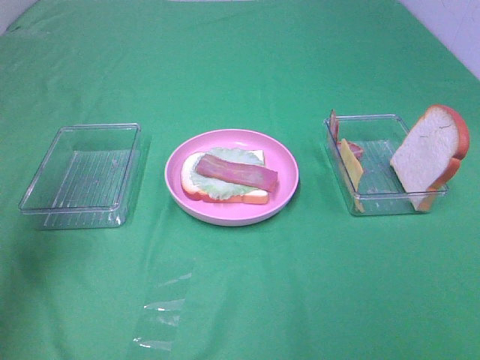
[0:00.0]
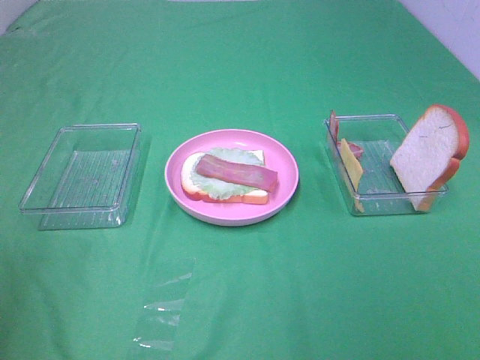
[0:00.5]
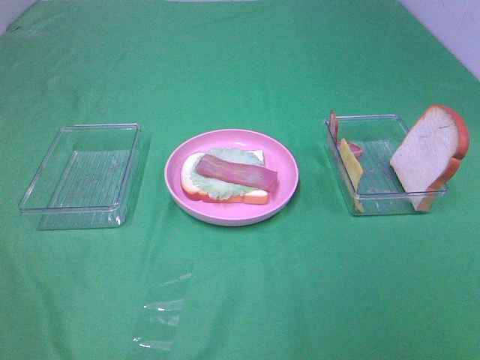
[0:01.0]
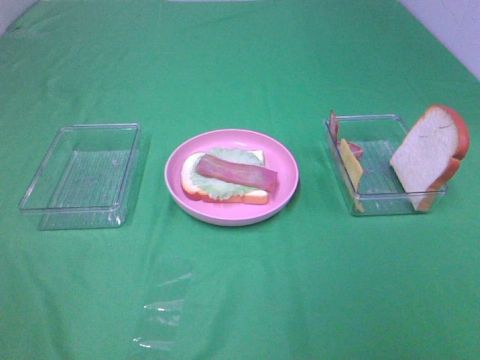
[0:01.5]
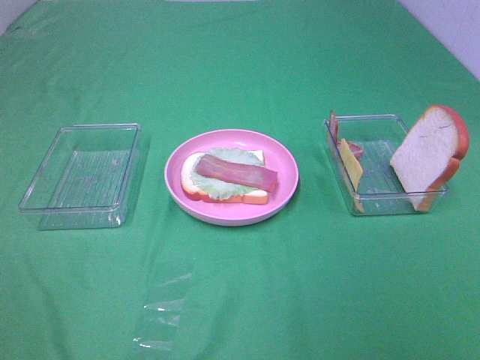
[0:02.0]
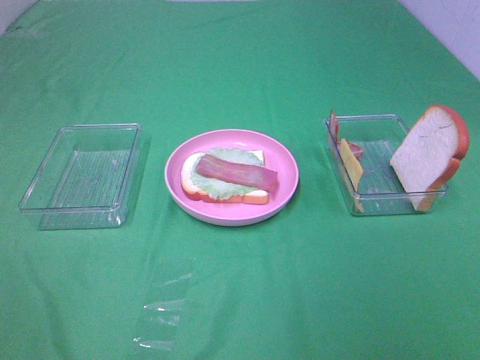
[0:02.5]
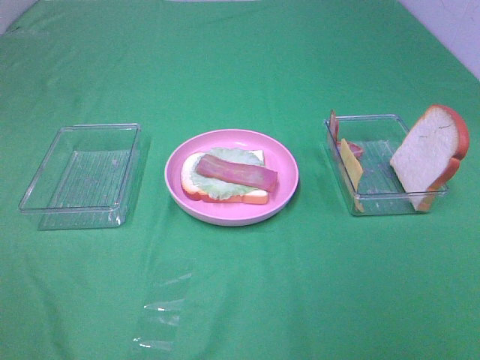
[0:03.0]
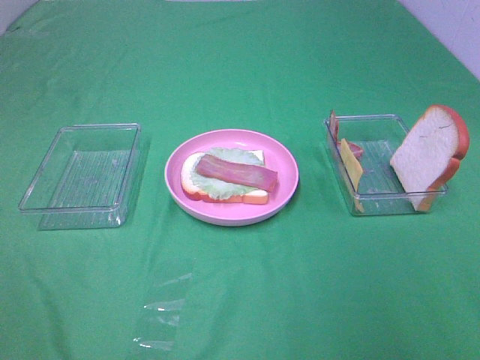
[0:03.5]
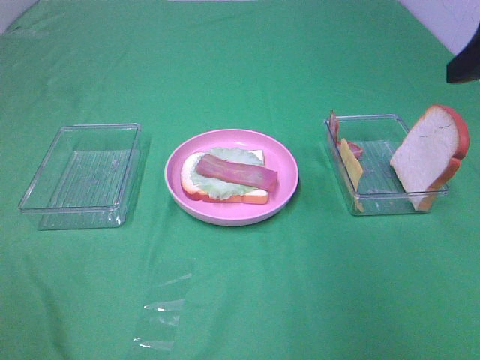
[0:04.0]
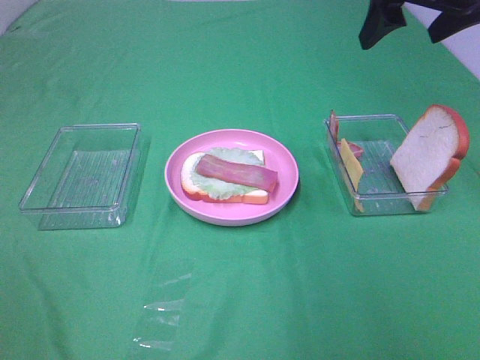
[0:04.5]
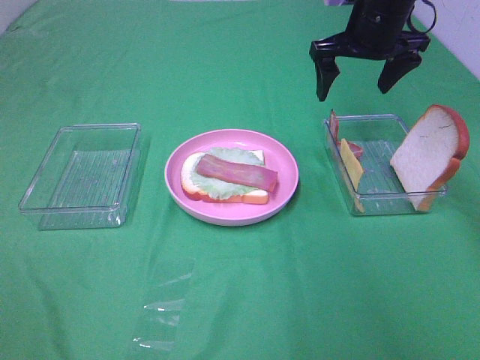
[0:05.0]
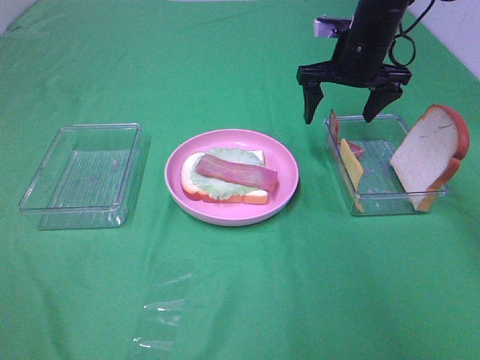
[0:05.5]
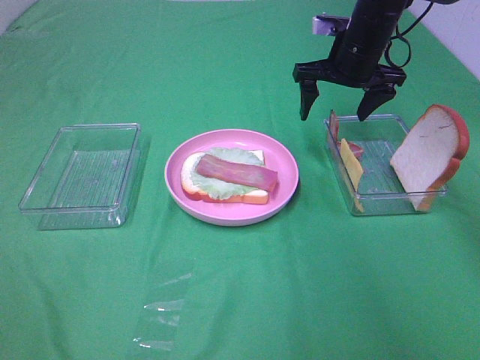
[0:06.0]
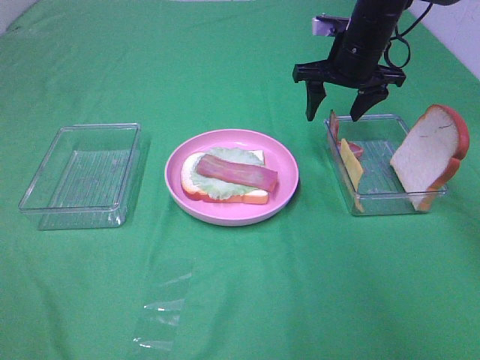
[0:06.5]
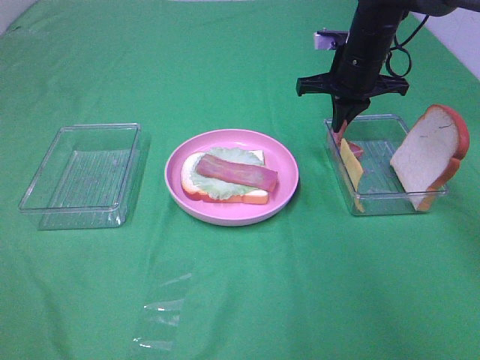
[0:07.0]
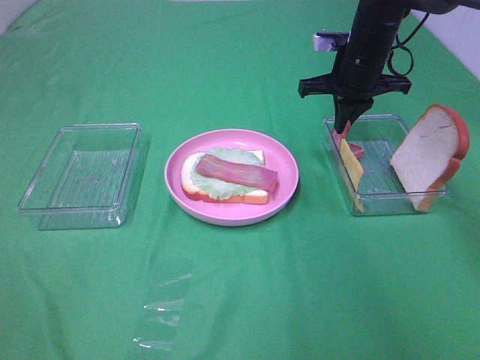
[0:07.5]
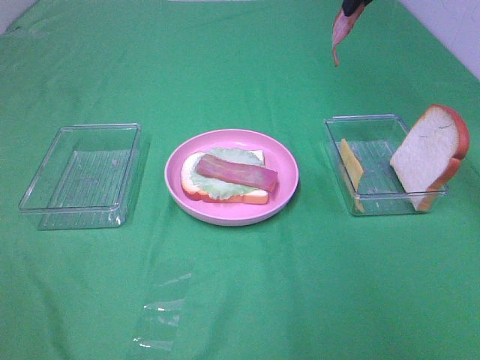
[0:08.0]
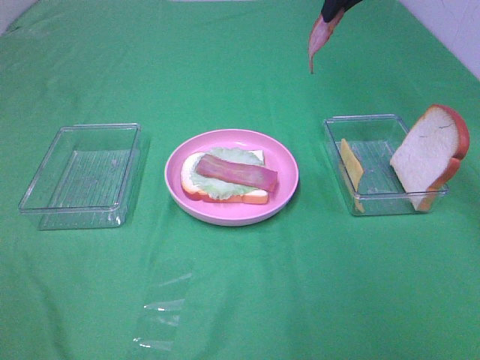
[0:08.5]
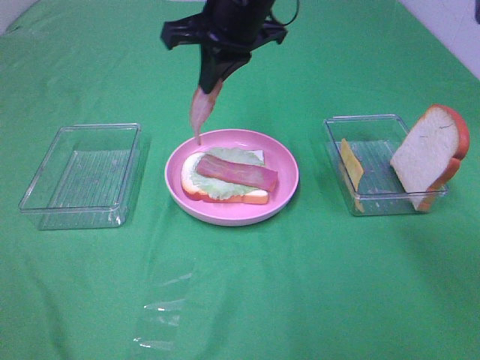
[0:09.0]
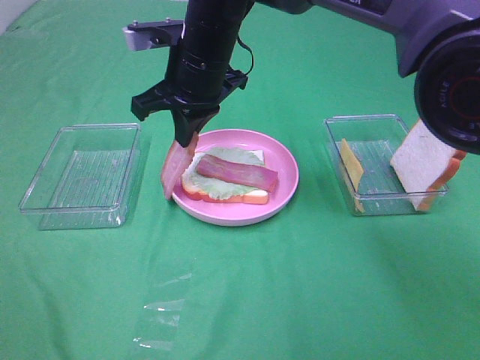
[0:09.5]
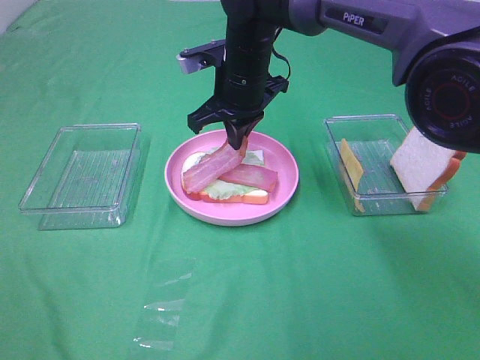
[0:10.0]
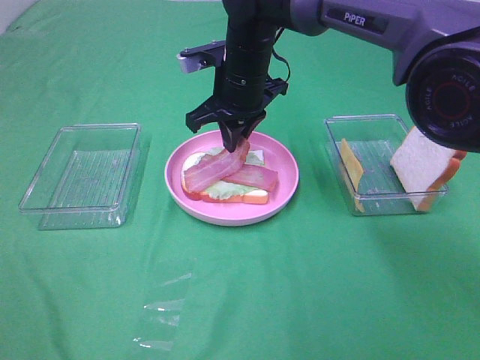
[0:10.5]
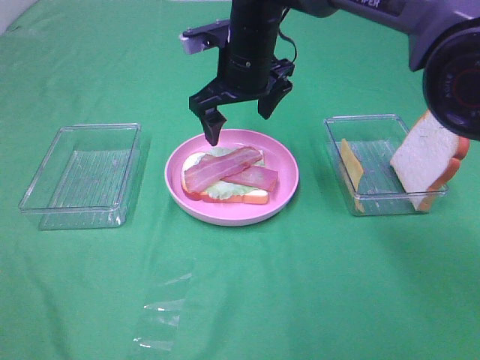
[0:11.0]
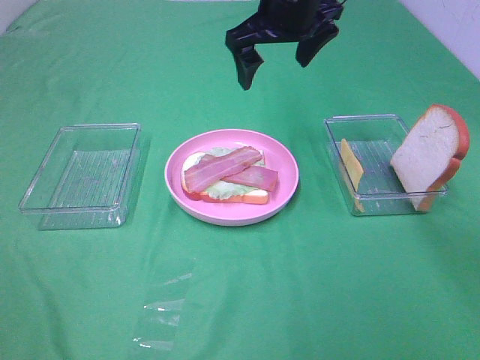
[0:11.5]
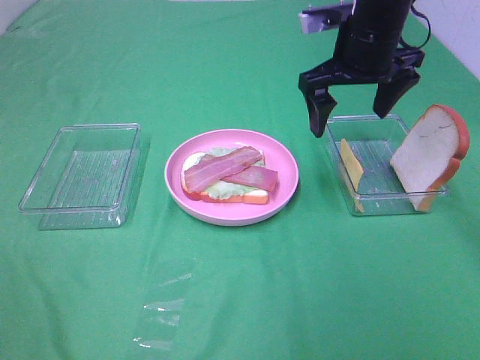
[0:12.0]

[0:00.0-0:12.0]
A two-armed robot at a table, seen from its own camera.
Task of the whole recording: Make sandwiches.
Step, 0:00.0 to 0:07.0: Right hand:grab the bacon.
Step, 0:07.5 to 0:10.5: Right hand:place bacon on bacon.
0:00.0 to 0:02.0: The left gripper heads backward, covering roughly 30 cm.
0:02.0 to 0:04.0: The right gripper shifts some 25 cm forward.
0:04.0 to 0:06.0: The right gripper moves forward, downward and to the left, approximately 30 cm.
0:06.0 to 0:08.0: The right gripper shifts about 15 cm upward, and closes its fingers.
0:08.0 to 0:10.0: The right gripper moves to the left and downward, about 25 cm.
0:10.0 to 0:12.0: The right gripper is displaced to the right by some 15 cm, and opens its fingers.

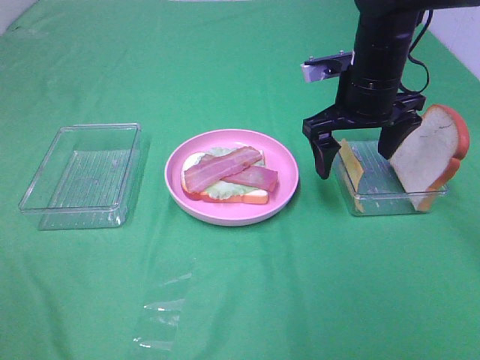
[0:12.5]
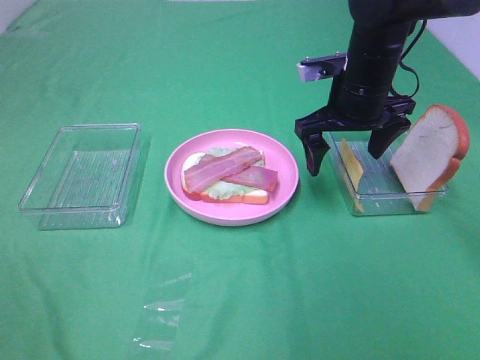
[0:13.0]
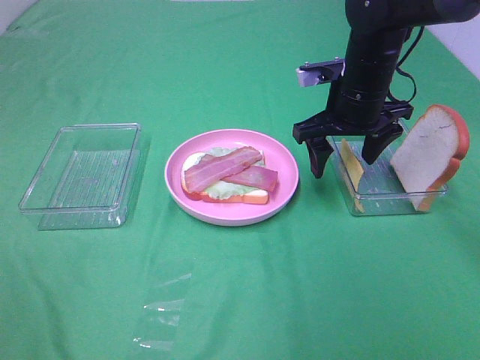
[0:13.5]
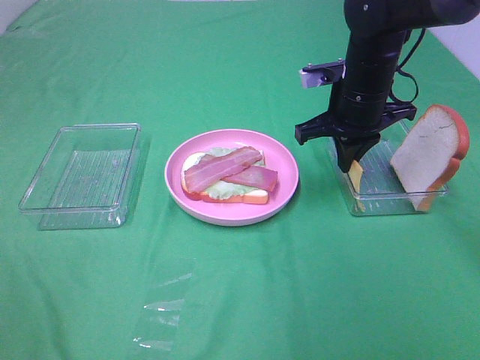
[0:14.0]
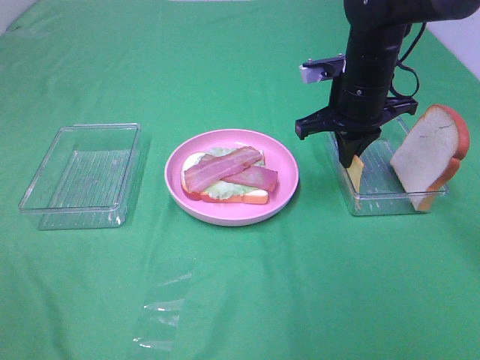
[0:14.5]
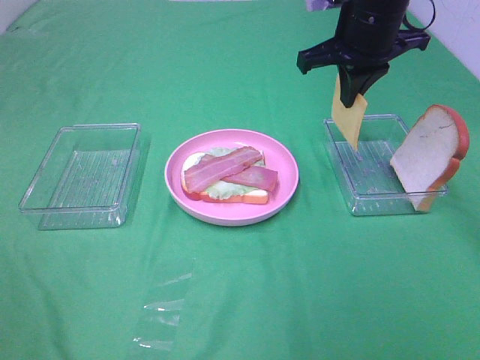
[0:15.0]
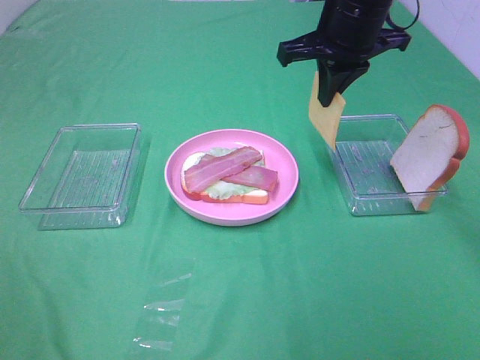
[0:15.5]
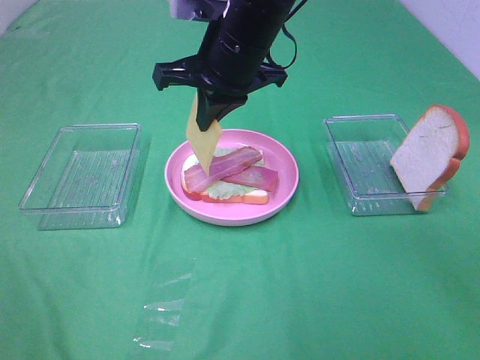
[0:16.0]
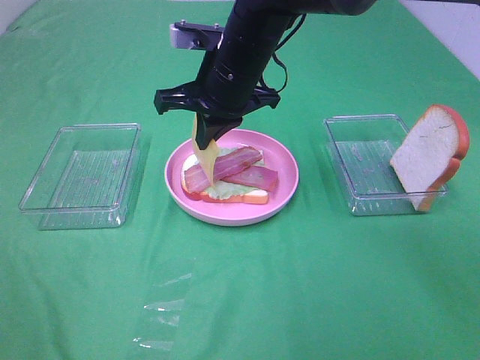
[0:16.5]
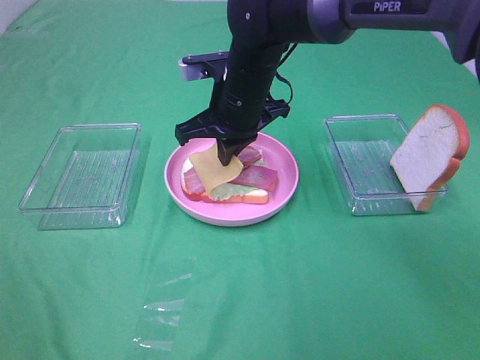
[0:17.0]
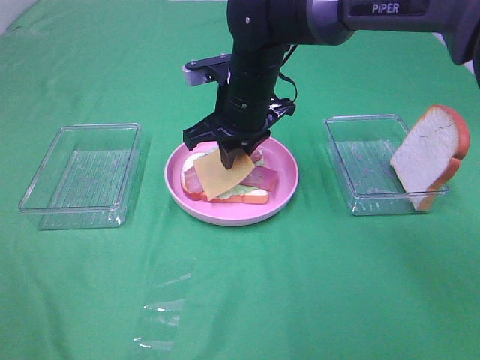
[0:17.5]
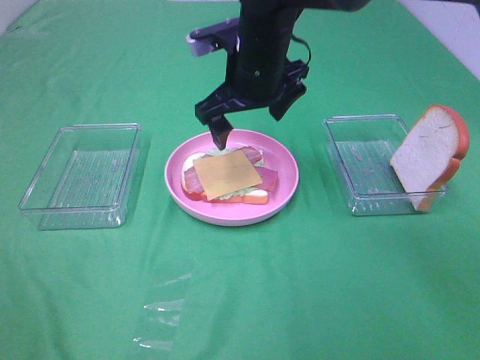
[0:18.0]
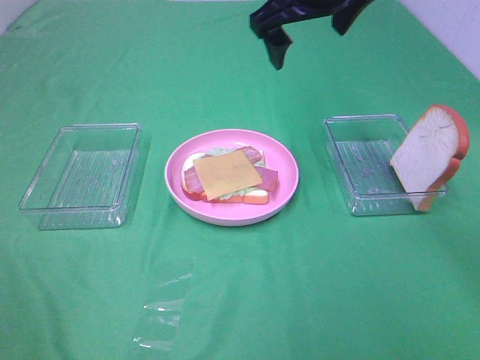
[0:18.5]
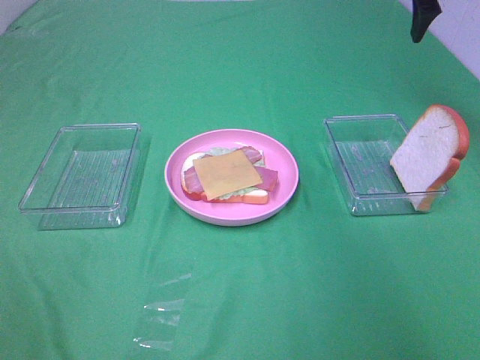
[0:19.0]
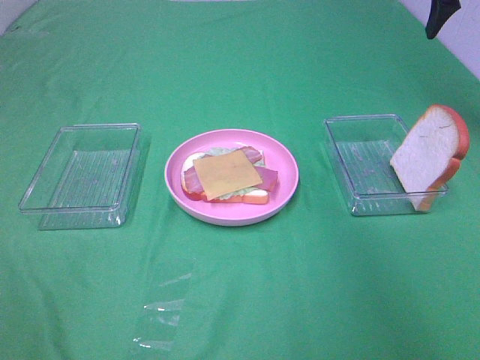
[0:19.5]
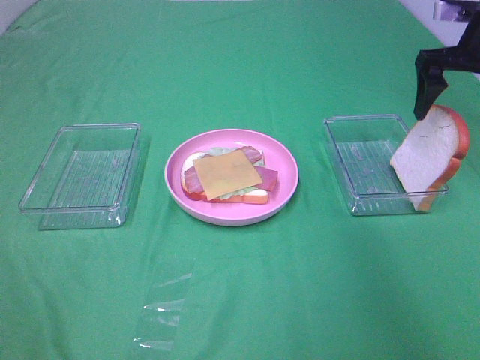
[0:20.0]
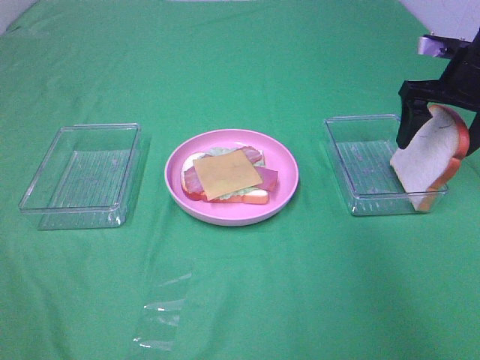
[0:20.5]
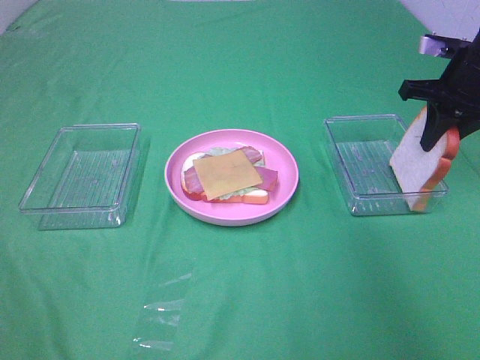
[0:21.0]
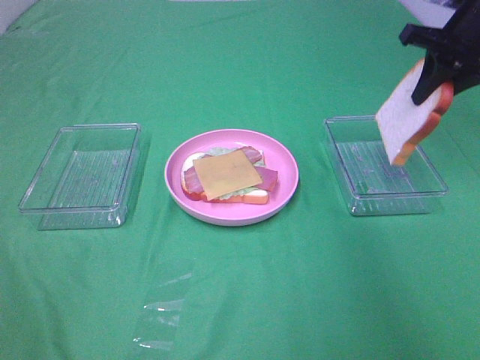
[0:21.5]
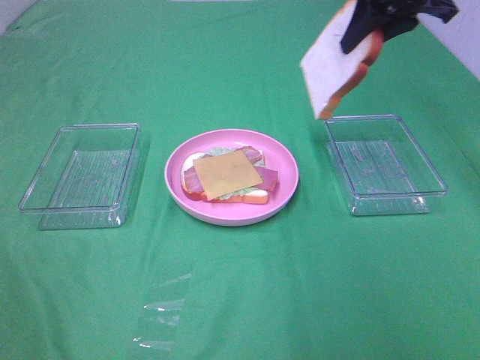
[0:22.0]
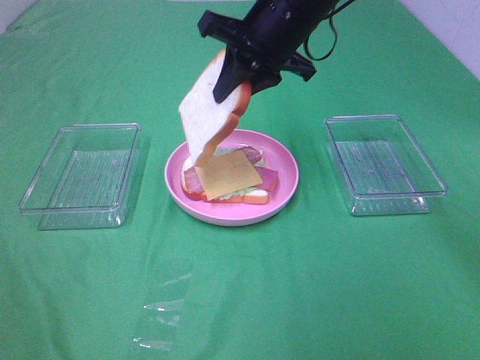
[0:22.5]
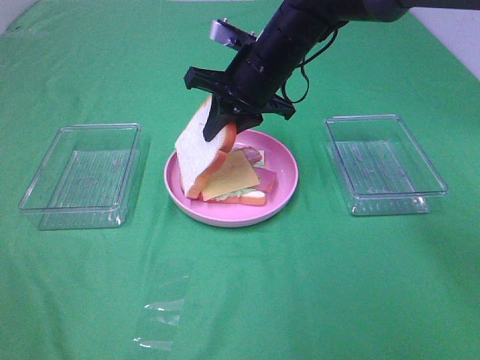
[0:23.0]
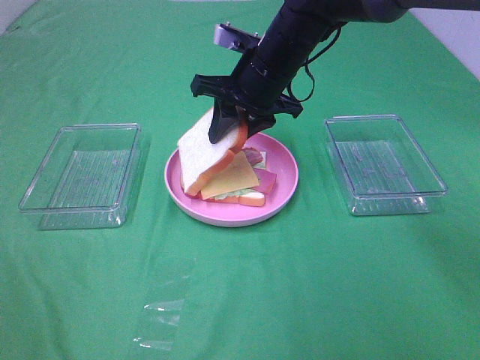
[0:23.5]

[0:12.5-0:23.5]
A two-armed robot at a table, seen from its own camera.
Task of the whole recording: Make sandwiches.
Step, 0:14.5 to 0:17.5: Right hand:place the cheese slice on top of the bacon.
Step, 0:18.0 to 0:20.5: Right hand:grab the bread slice.
0:12.5 to 0:14.5: The right gripper closes up.
0:14.5 to 0:16.0: The right gripper is displaced to the left and upward by roughly 15 cm.
0:16.0 to 0:18.0: The right gripper opens up.
0:18.0 to 0:20.0: The right gripper is displaced to the right by approximately 30 cm.
0:20.0 to 0:21.5: The right gripper closes.
0:21.5 to 0:23.5: The right gripper shifts roughly 25 cm to the left.

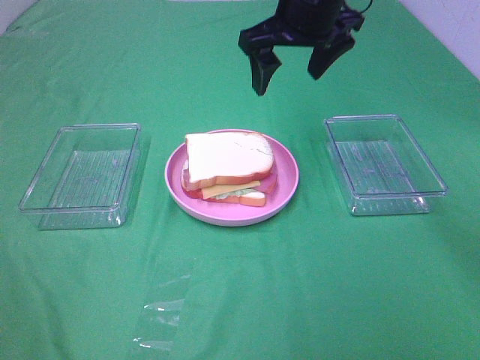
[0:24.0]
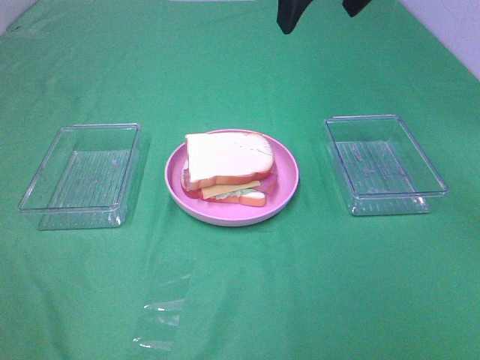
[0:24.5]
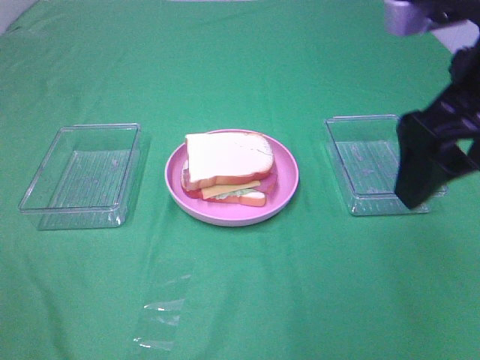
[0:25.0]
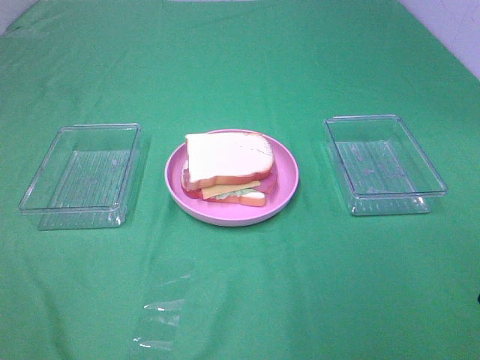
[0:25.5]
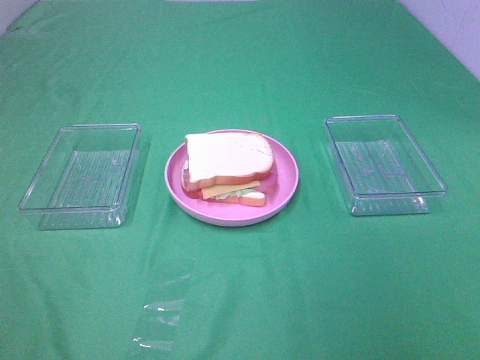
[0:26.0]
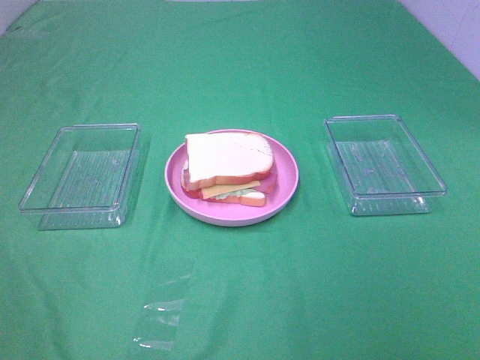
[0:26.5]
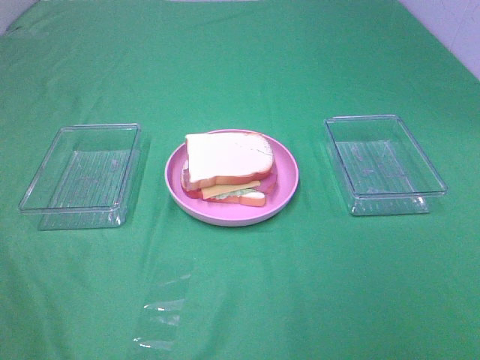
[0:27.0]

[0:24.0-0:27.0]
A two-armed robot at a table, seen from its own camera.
Task of the whole recording: Make sandwiches.
0:24.0 to 0:25.5: The right gripper moves backward and to the right, approximately 30 cm.
